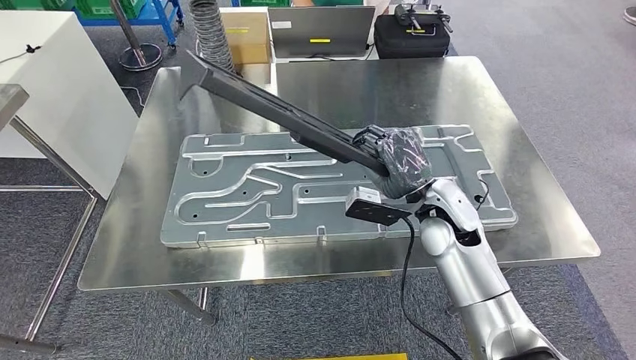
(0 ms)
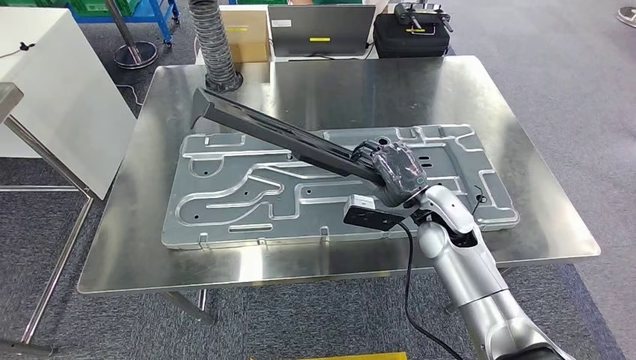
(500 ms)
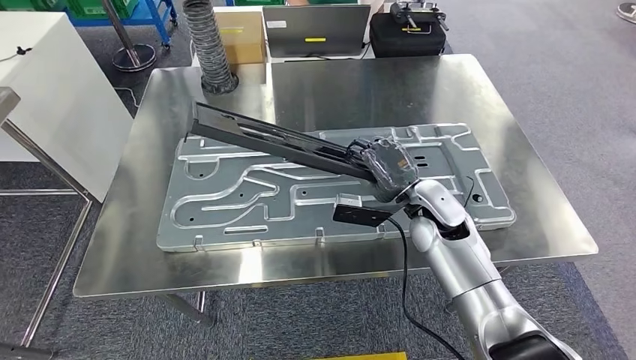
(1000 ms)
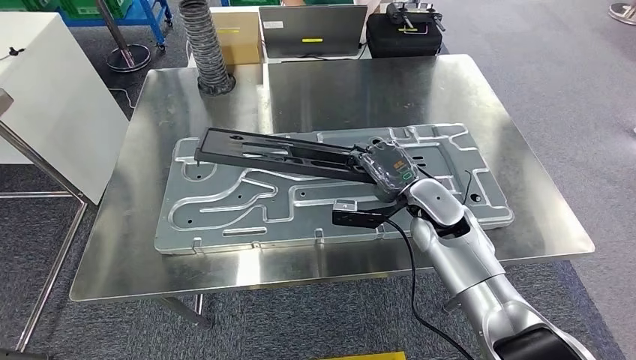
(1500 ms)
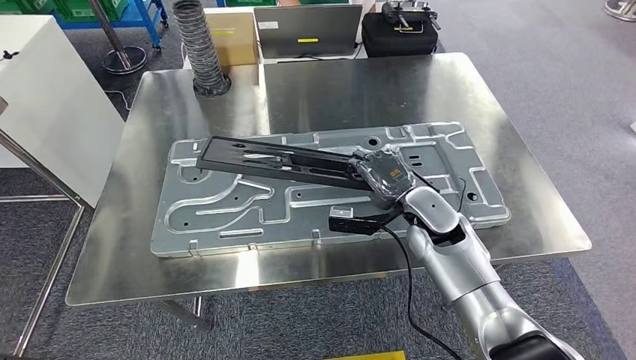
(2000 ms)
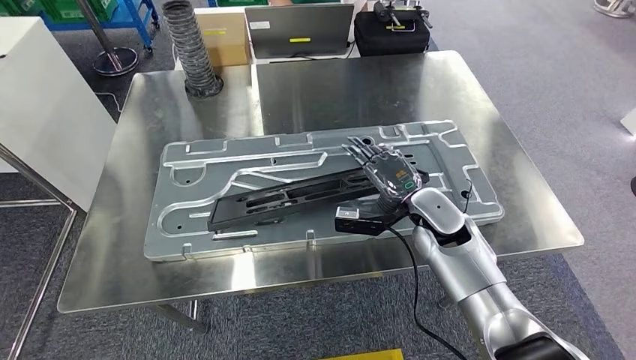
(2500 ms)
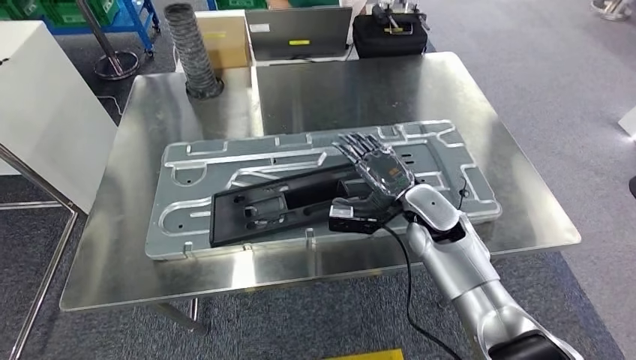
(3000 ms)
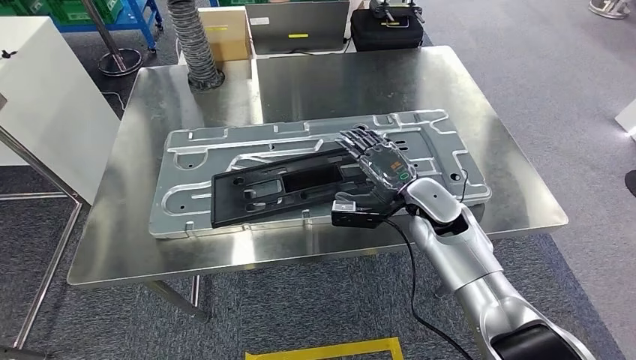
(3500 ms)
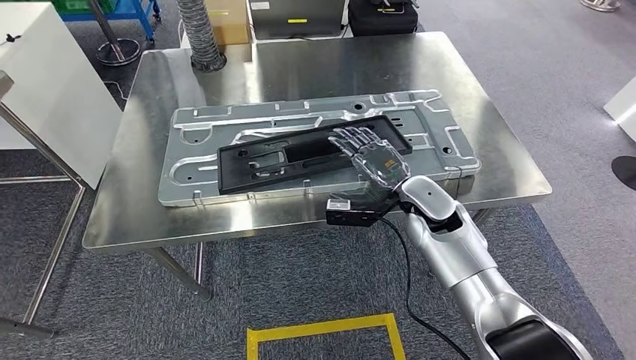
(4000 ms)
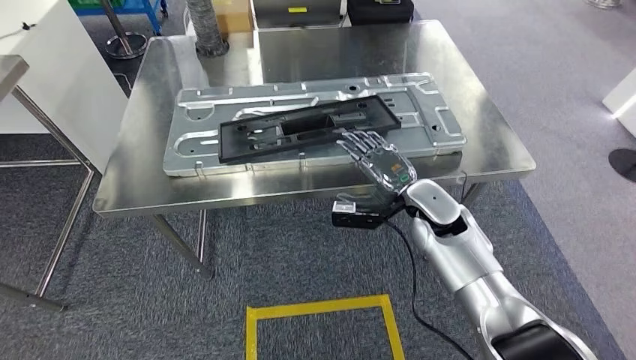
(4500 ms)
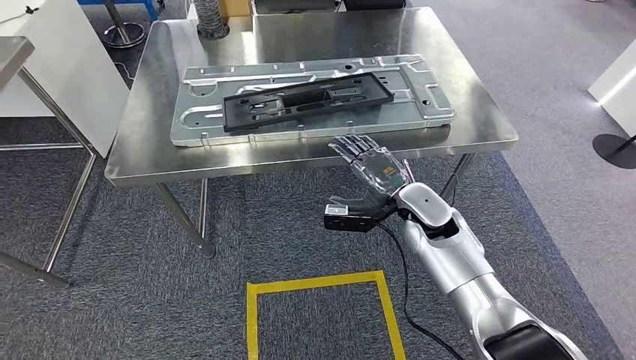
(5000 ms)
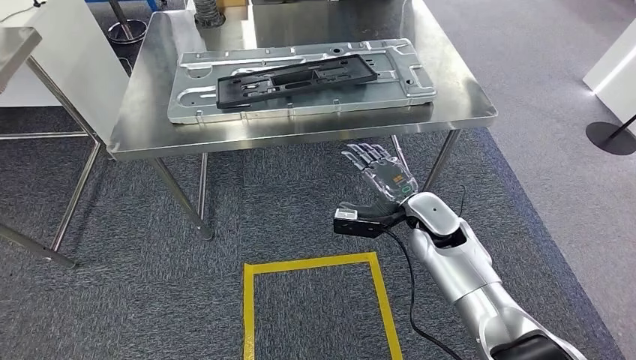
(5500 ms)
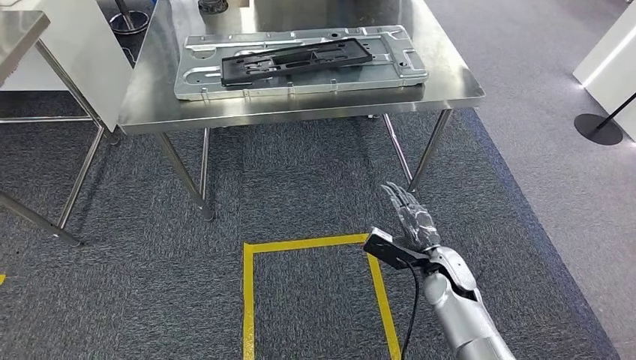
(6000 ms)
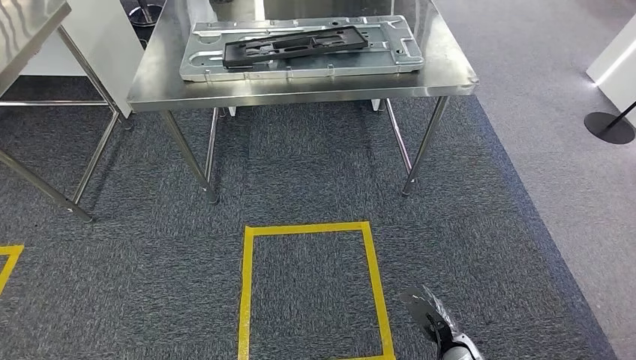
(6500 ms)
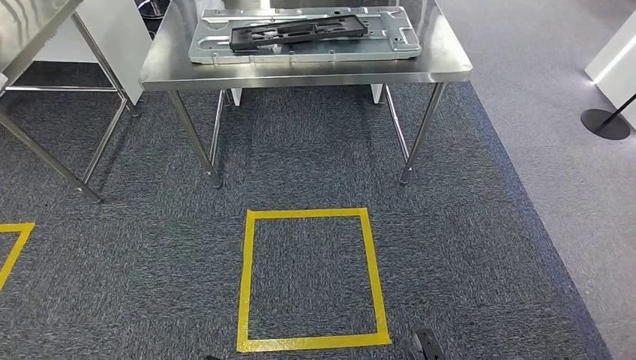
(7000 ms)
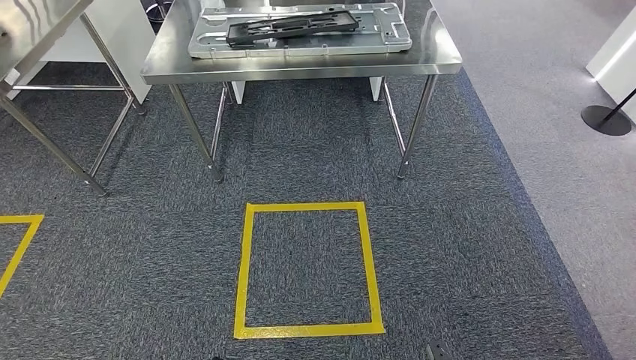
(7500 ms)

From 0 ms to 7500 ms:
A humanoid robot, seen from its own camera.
Step, from 0 ms to 3000 ms: Insert the large material into the corresponding slot on the workbench.
Step, from 4500 ms to 7500 ms: Move to the initial position of the shelf.
